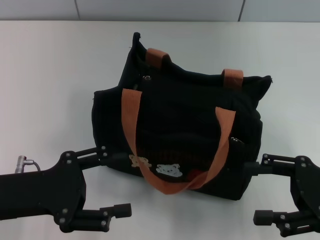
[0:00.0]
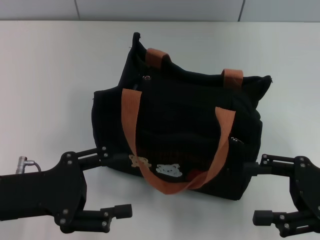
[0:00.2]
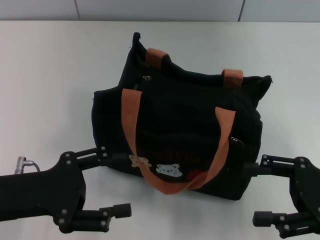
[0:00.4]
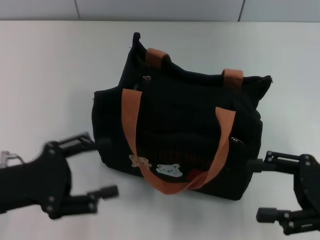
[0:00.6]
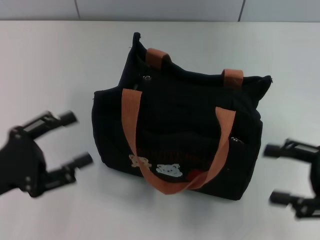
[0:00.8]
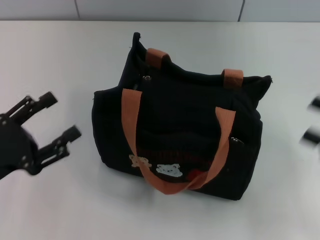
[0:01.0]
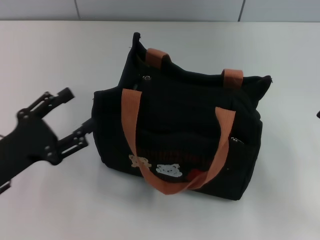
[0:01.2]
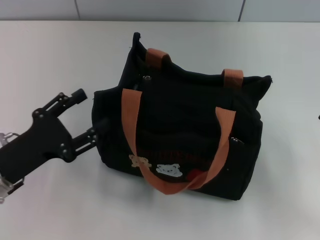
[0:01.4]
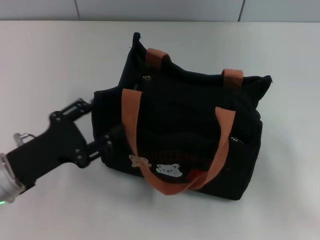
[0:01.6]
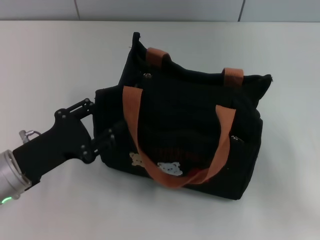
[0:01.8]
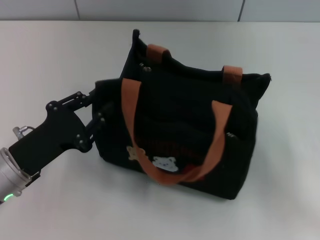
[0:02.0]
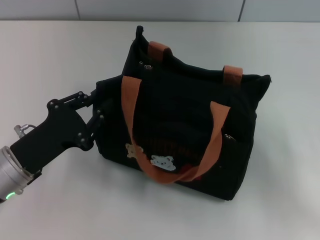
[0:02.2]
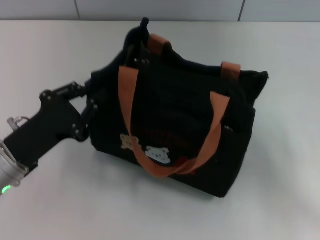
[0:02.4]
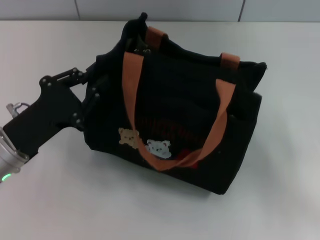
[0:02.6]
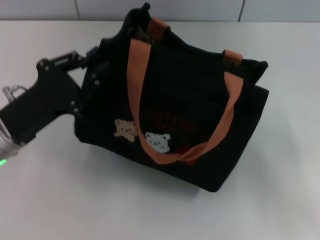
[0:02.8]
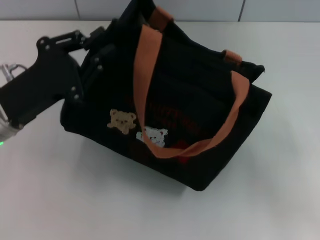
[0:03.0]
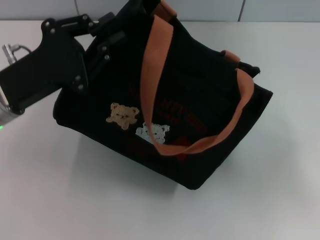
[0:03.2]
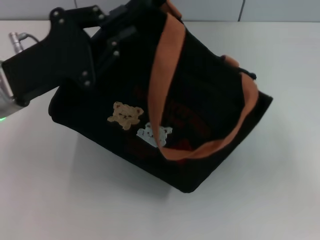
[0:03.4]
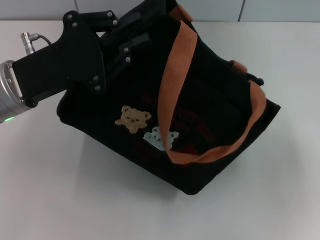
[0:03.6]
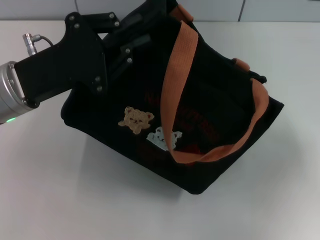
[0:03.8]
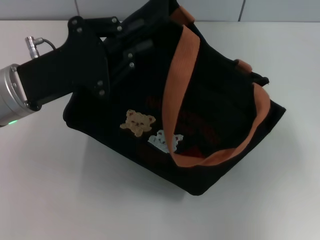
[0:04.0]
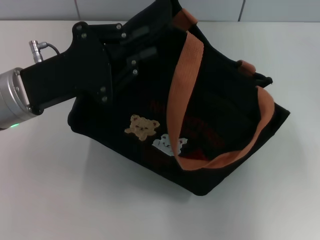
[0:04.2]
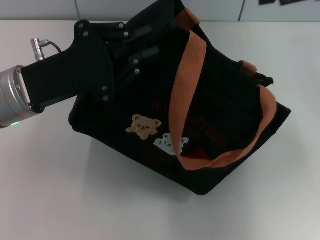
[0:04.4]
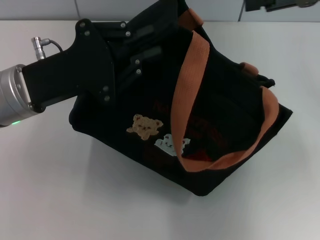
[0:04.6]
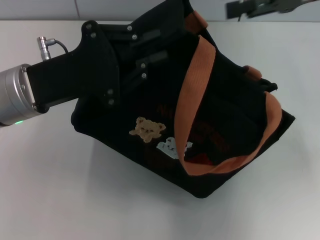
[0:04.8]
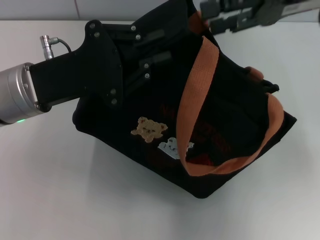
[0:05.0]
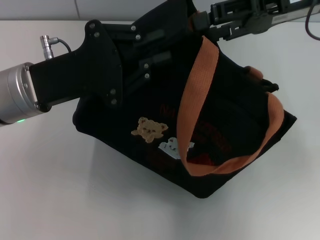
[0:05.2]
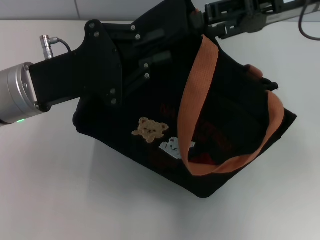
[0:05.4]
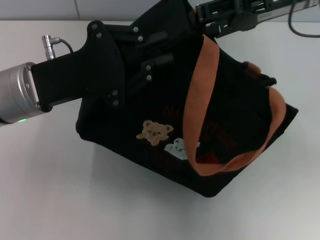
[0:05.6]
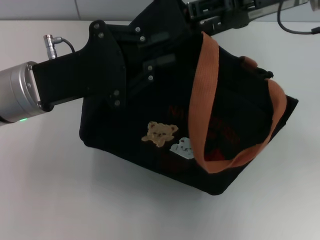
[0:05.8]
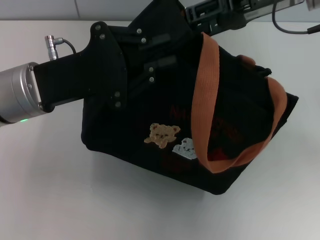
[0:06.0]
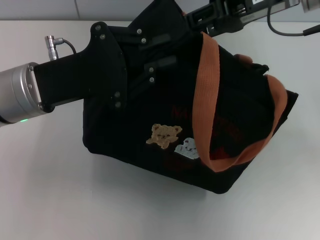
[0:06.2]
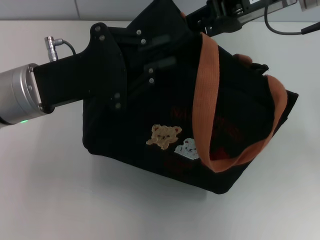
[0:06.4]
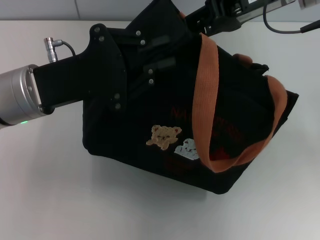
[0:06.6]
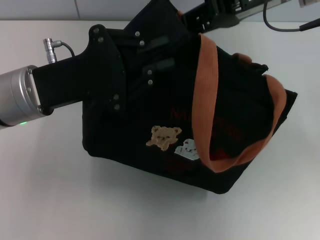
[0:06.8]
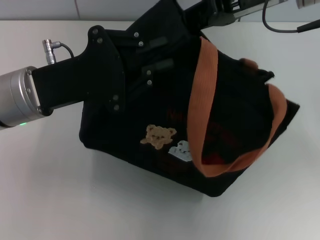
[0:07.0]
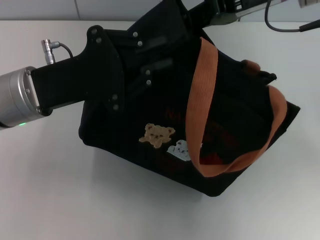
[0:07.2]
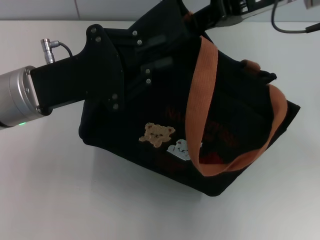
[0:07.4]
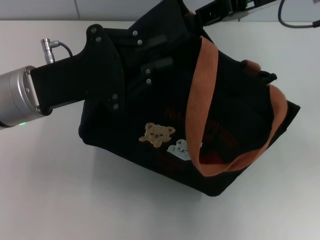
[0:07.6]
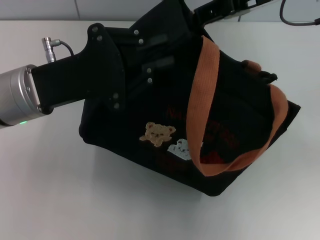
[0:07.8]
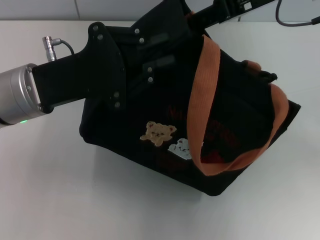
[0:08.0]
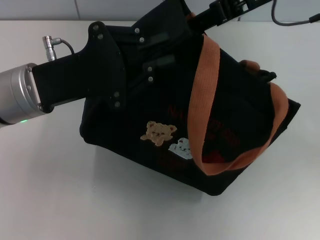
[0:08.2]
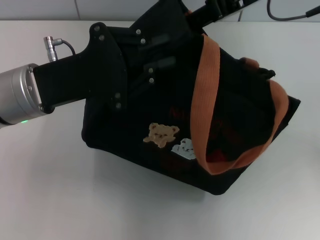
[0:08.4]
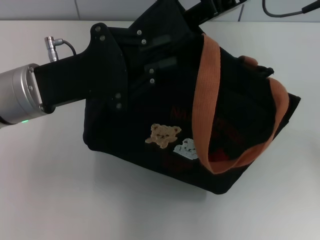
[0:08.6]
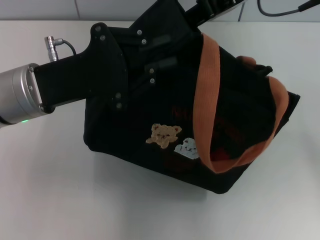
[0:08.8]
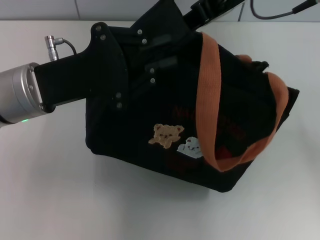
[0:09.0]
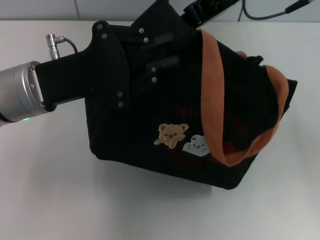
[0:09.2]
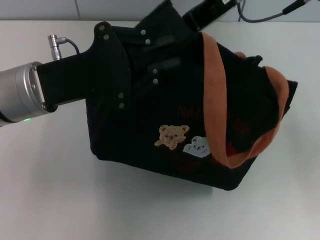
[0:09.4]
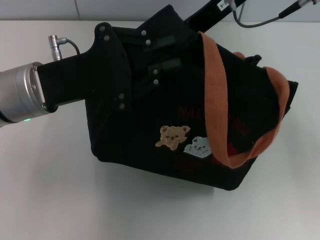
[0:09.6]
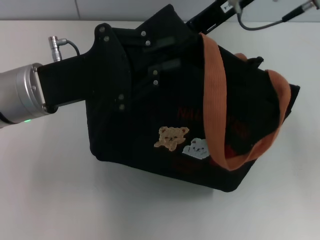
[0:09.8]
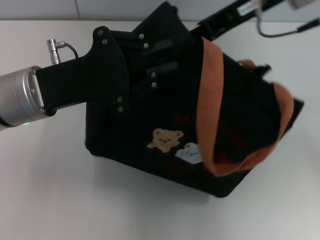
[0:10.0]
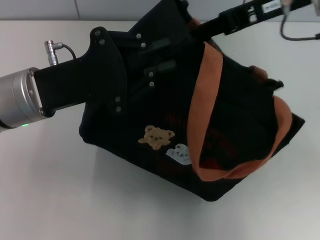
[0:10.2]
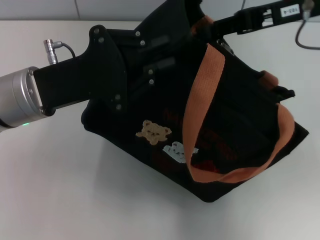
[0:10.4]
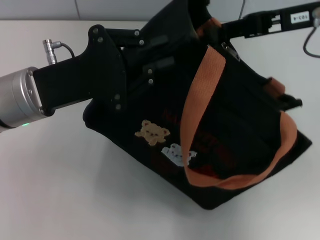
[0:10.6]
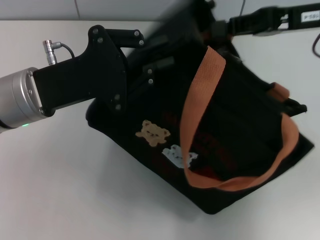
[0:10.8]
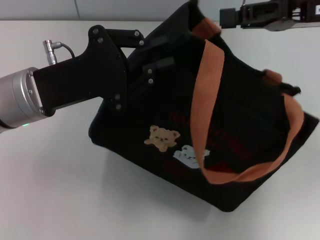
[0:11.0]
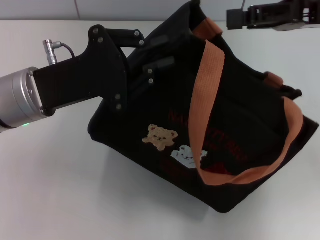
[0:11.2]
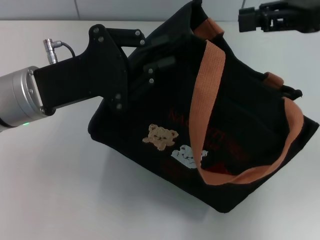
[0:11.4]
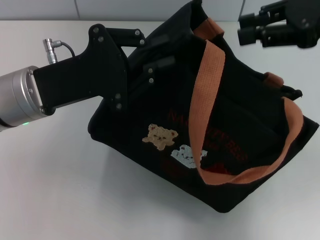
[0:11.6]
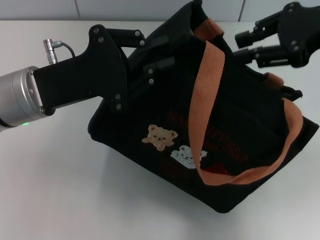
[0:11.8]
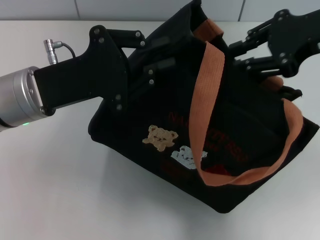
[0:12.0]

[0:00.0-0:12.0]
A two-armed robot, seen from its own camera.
0:00.0 to 0:01.6: The right gripper heads to the right, covering approximately 5 cm.
0:01.6 to 0:03.0: The left gripper shifts approximately 10 cm upward and forward, and closes up.
0:03.0 to 0:04.4: The right gripper heads forward, upward and to the left, covering some 25 cm.
0:04.4 to 0:06.0: The right gripper travels to the left by about 10 cm.
0:06.0 to 0:07.6: The right gripper closes its fingers.
0:07.6 to 0:09.0: The right gripper moves roughly 5 cm, and opens its fingers.
0:09.0 to 0:10.4: The right gripper heads to the right, covering about 5 cm, and closes up.
0:10.4 to 0:12.0: The right gripper opens its fingers.

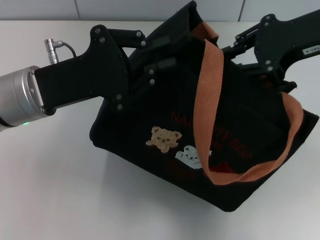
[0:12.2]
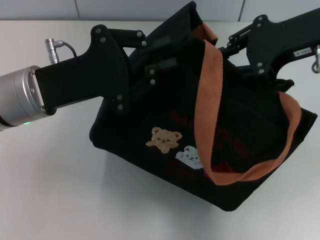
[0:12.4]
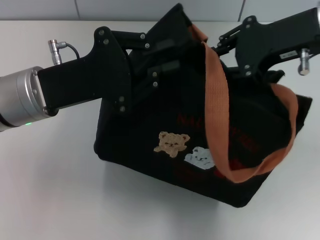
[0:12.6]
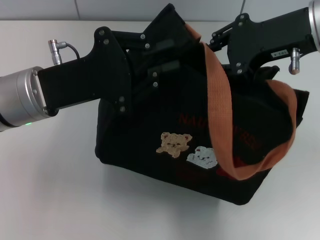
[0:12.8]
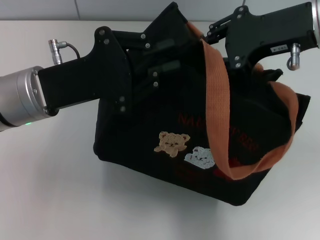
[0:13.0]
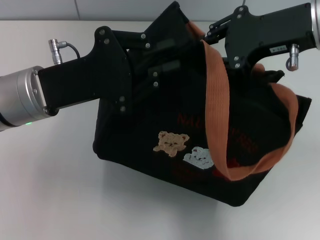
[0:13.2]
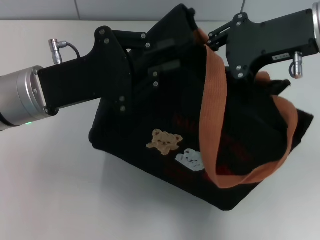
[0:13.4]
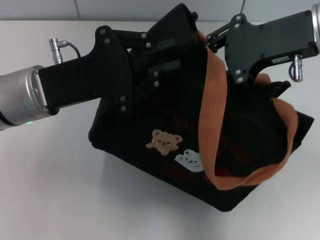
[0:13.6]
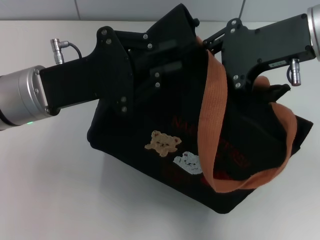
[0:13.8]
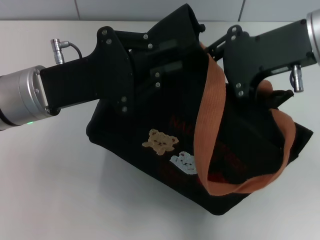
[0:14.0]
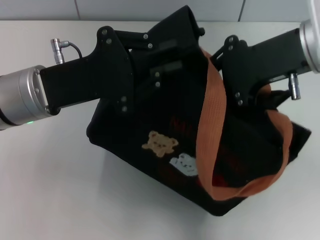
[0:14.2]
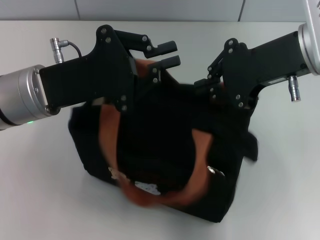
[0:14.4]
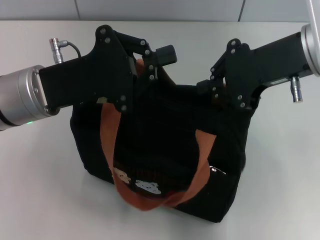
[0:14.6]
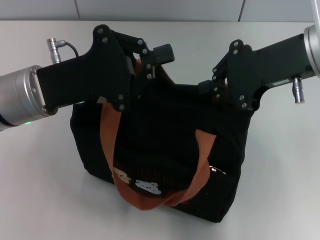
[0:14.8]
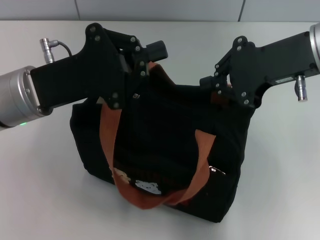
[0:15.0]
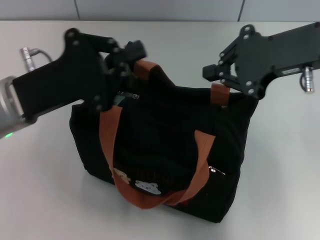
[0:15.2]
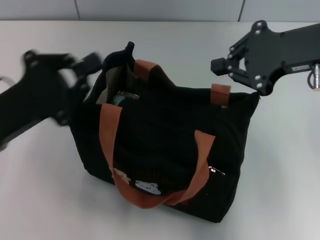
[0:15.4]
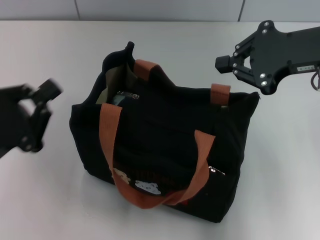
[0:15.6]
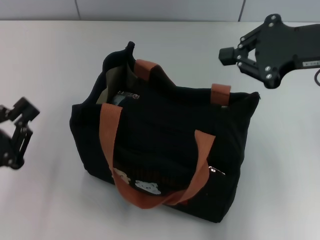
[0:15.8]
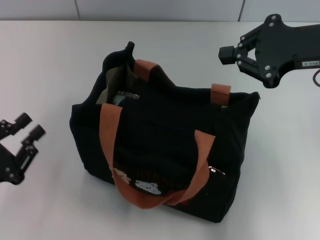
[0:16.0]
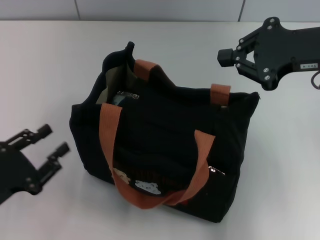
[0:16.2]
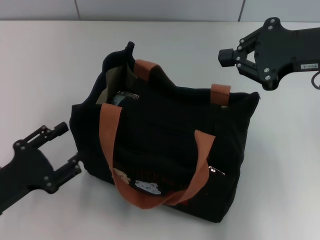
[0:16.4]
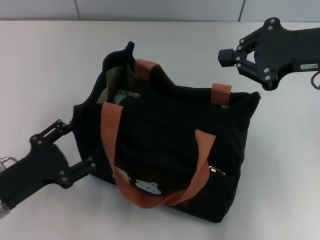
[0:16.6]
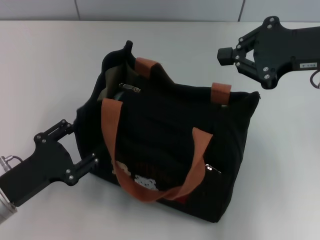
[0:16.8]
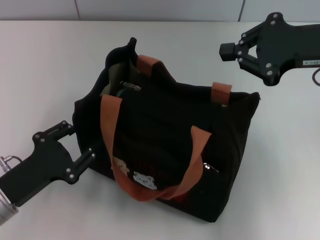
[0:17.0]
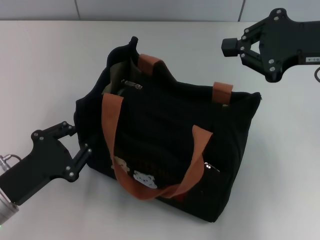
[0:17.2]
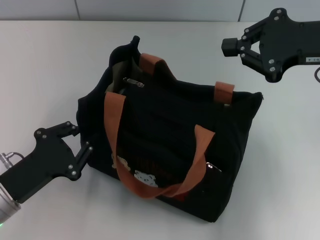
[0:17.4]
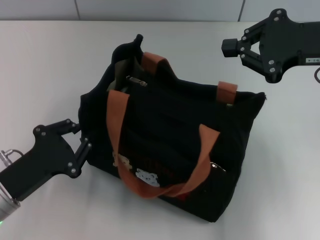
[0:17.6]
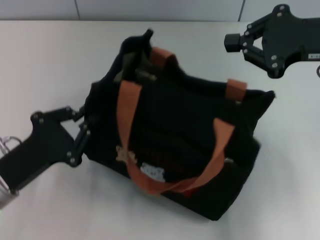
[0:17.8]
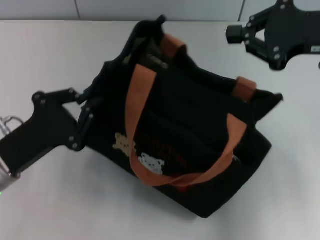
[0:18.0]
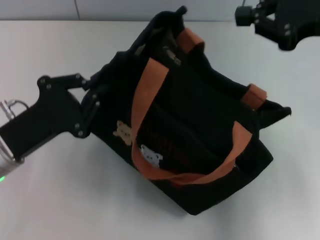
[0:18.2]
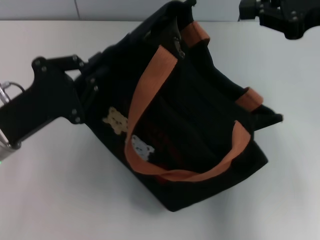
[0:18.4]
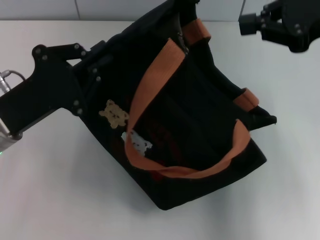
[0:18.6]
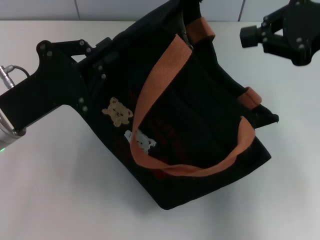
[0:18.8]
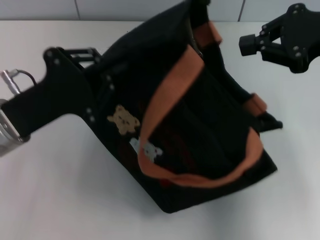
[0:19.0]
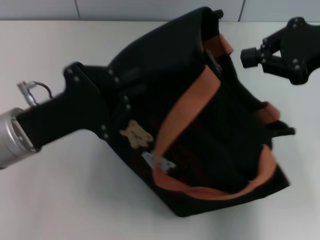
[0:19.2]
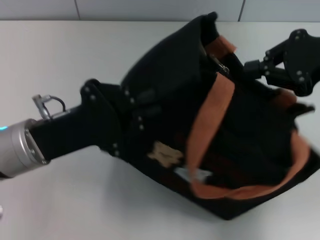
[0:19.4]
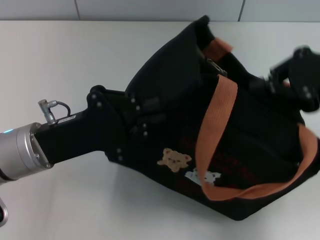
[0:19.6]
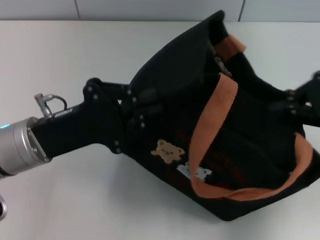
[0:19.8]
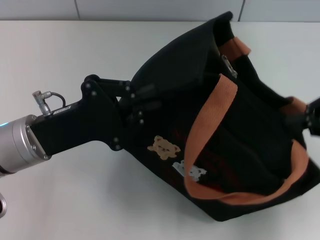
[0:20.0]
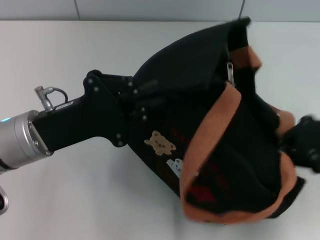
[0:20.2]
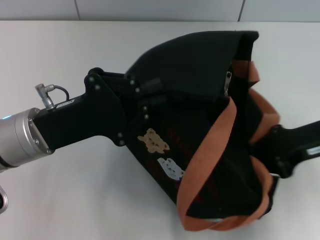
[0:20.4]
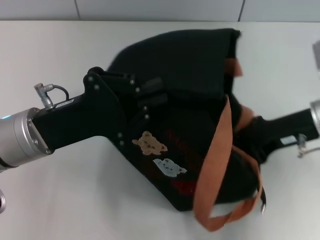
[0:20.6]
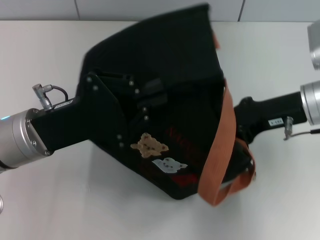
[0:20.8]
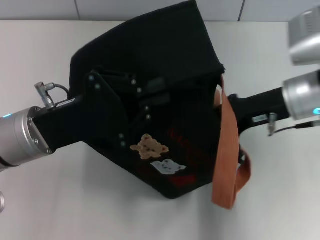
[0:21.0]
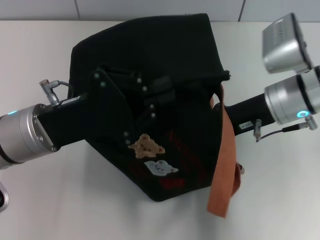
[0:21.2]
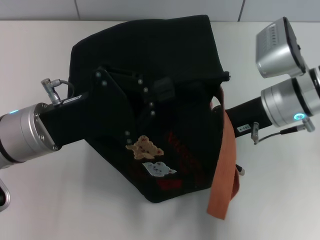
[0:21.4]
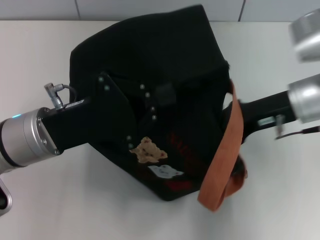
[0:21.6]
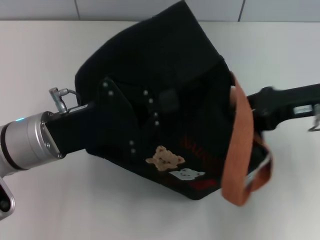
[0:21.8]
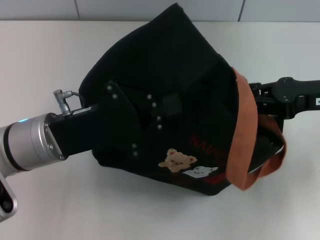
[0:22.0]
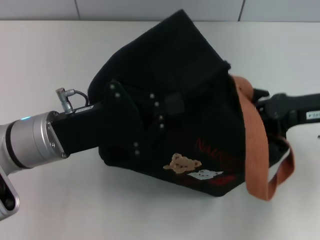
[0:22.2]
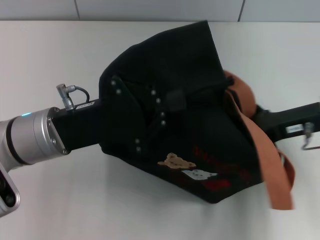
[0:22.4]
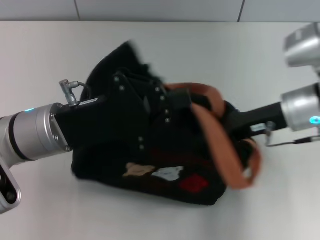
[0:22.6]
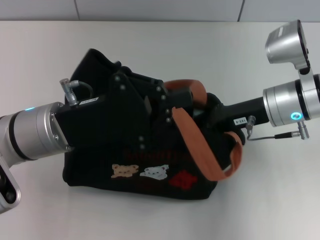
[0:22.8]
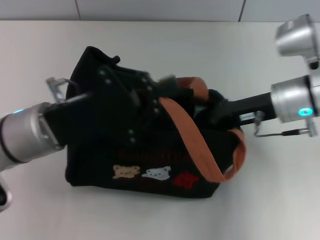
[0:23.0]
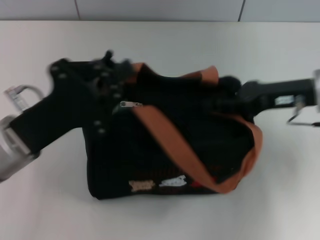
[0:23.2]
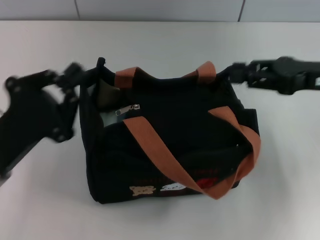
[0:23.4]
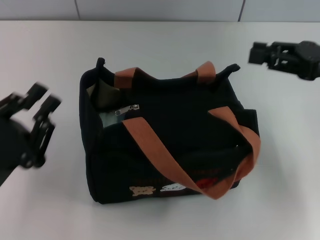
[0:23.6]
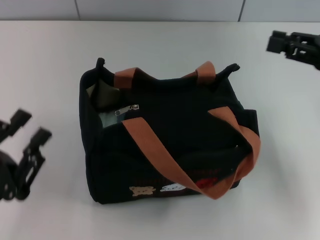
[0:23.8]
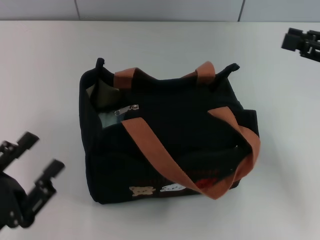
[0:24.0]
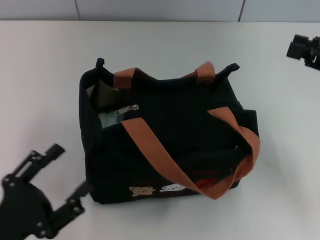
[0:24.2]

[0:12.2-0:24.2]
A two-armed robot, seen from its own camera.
0:12.2 to 0:13.8: There are only small adjustments of the grippers.
0:13.8 to 0:15.2: The right gripper closes its fingers.
0:15.2 to 0:16.6: The left gripper travels downward, backward and to the left by roughly 15 cm, and opens.
0:16.6 to 0:18.2: The left gripper is displaced forward by some 5 cm, and closes.
0:18.2 to 0:19.8: The right gripper changes place by some 5 cm.
0:19.8 to 0:21.2: The right gripper moves to the left and downward, some 15 cm.
0:21.2 to 0:22.6: The right gripper goes to the right and returns, some 10 cm each way.
0:22.6 to 0:24.2: The left gripper shifts approximately 20 cm backward, to the left and downward, and opens. Meanwhile the right gripper goes about 15 cm to the right and upward.
